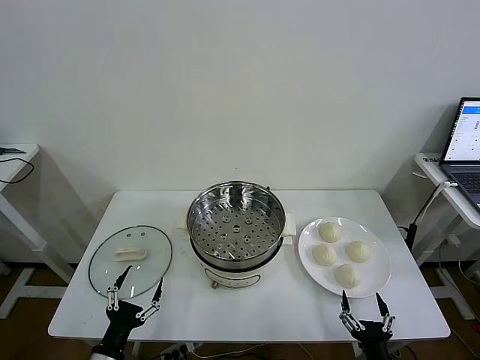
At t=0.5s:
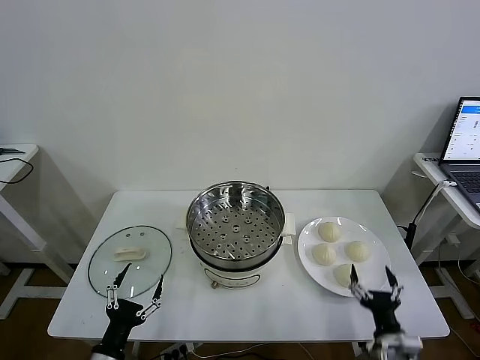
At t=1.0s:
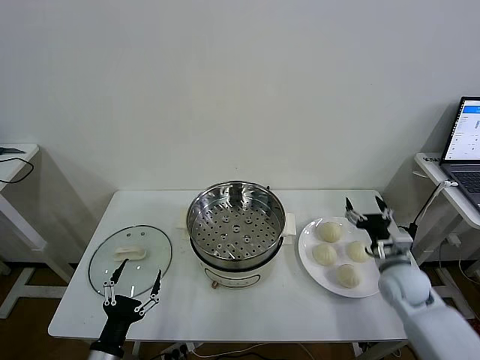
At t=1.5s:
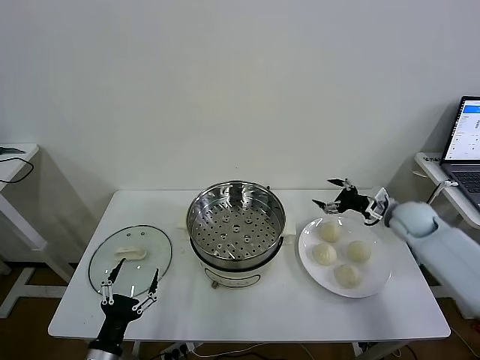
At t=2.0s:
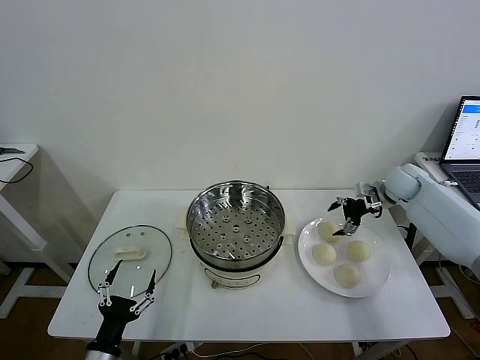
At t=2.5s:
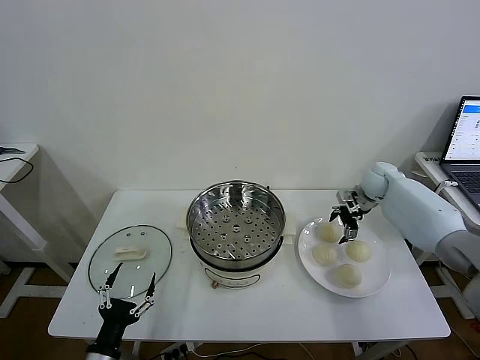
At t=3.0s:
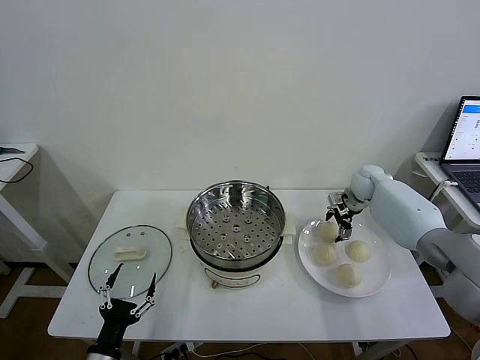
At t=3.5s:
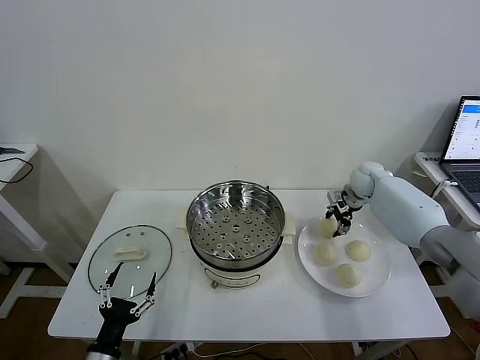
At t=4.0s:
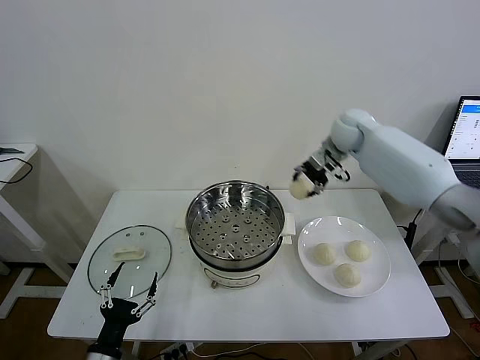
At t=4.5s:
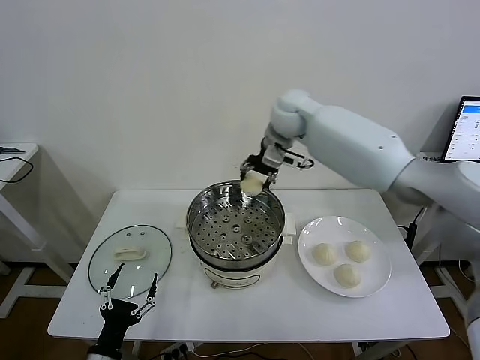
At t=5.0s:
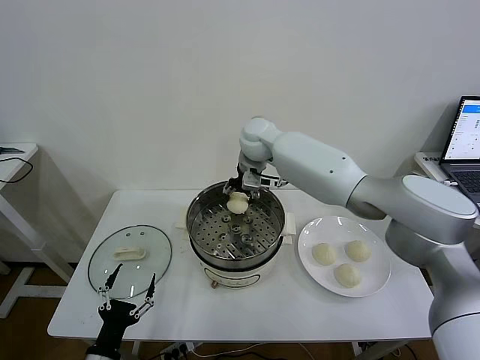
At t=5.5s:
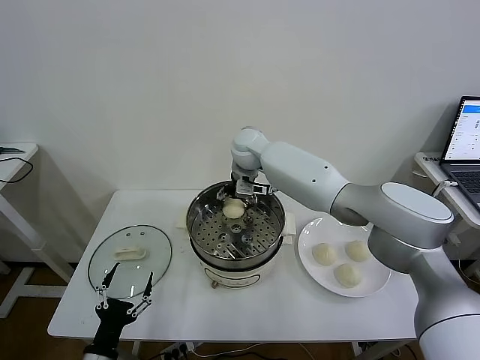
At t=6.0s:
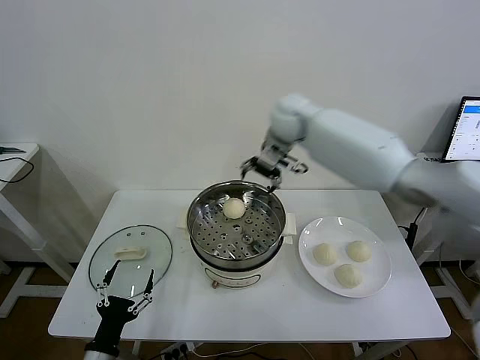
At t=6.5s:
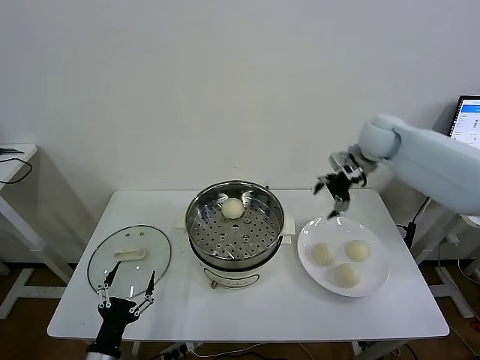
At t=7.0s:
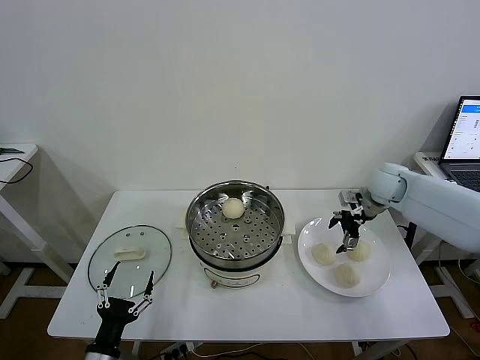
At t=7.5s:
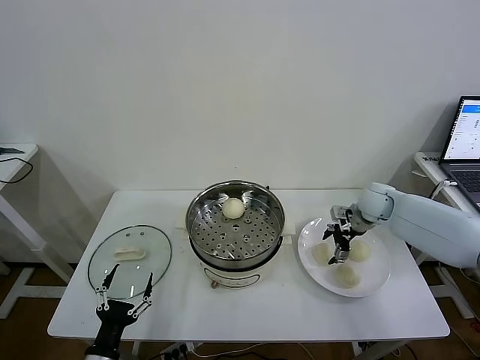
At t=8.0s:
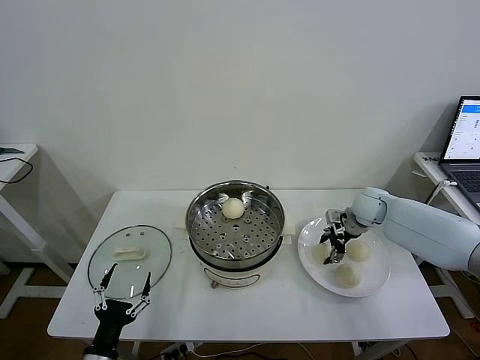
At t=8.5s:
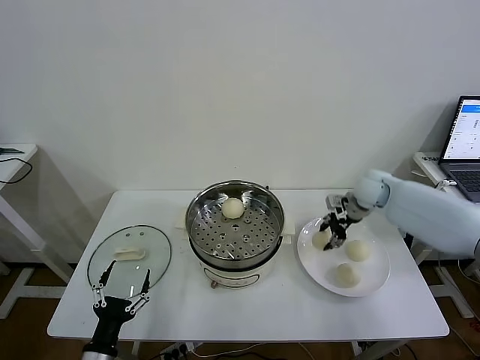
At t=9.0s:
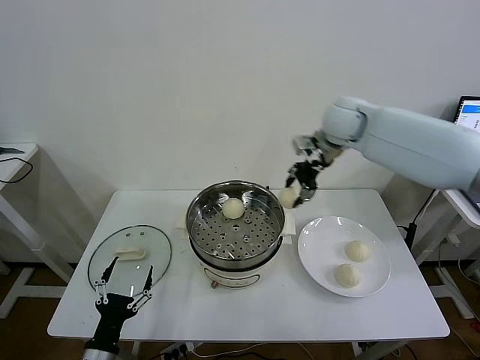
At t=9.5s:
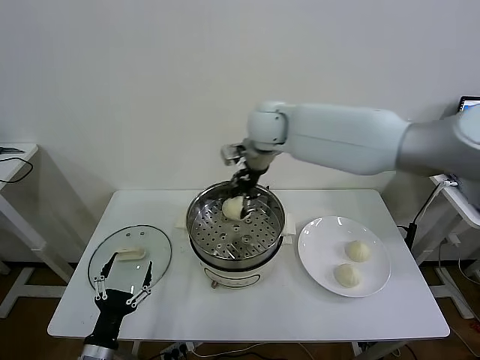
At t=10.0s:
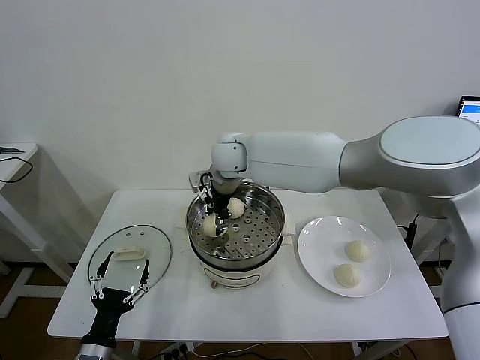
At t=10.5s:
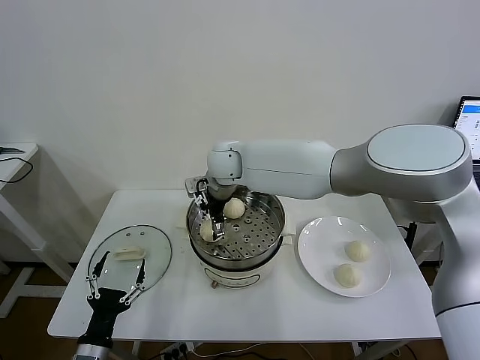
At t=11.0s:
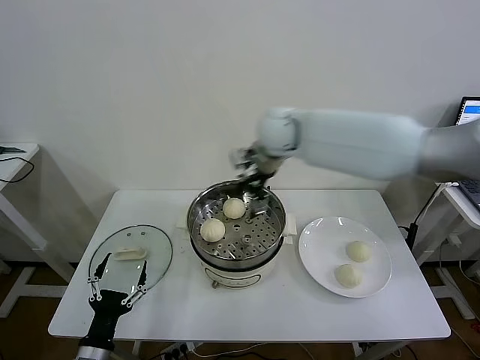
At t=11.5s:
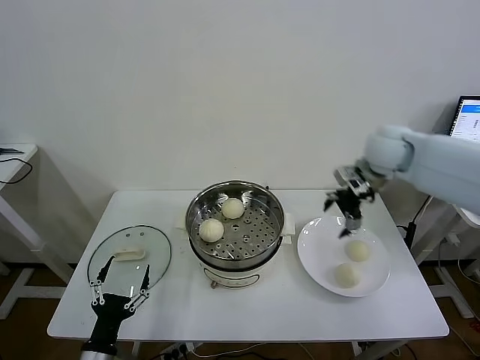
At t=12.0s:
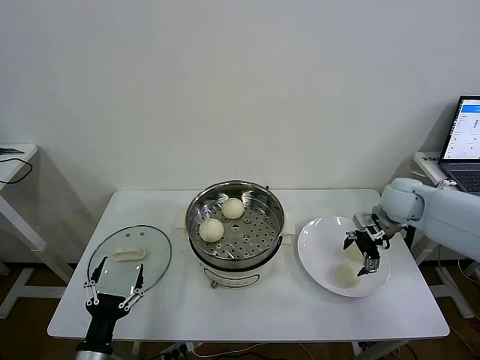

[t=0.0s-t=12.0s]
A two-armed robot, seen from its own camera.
Task of the whole recording: take steamed baozi put them in steamer then cover it.
Step, t=0.0s to t=3.0s: Grasp the baozi in the plate with right gripper.
Step, t=3.5s to t=5.5s: Place the baozi on the steamer with right gripper.
Step, t=6.0s to t=8.0s: Grasp the baozi in the plate with right gripper.
Step, t=8.5s to t=10.5s: Place the baozi on the steamer with right gripper.
t=2.0s to t=4.0s: The right gripper shifts about 25 cm to the left and upward, and closes up.
t=4.0s to t=6.0s: The right gripper goes roughly 10 cm to the left, and opens up.
t=6.0s to t=8.0s: The right gripper heads downward and to the right, covering some 30 cm, and closes its fingers.
t=8.0s to t=10.0s: The right gripper is displaced to the left and upward by about 40 cm.
t=10.0s to t=12.0s: The right gripper shifts about 40 cm to the right, and opens.

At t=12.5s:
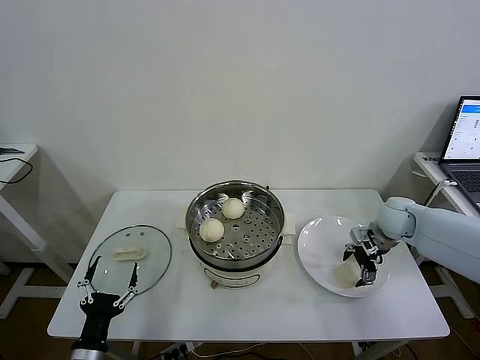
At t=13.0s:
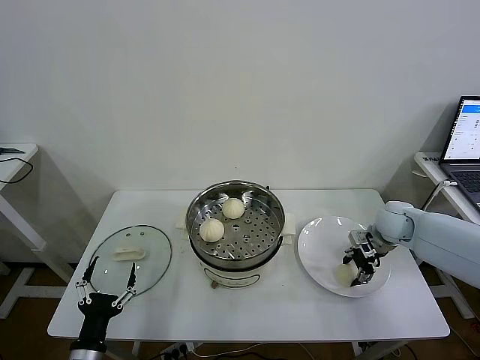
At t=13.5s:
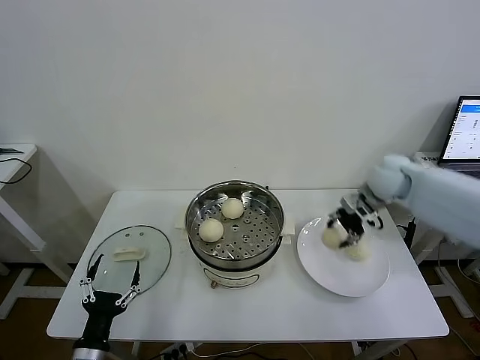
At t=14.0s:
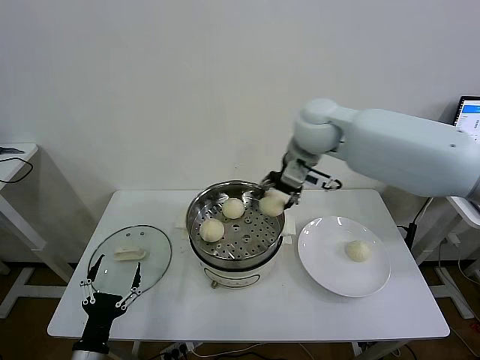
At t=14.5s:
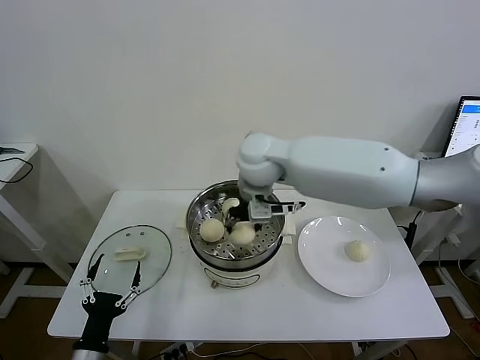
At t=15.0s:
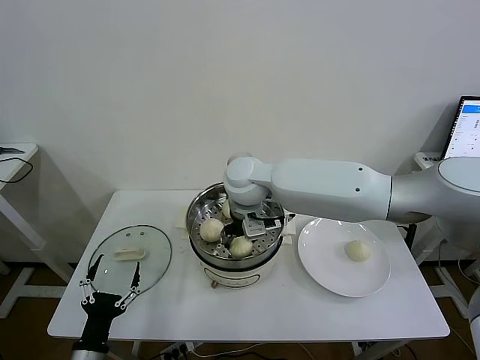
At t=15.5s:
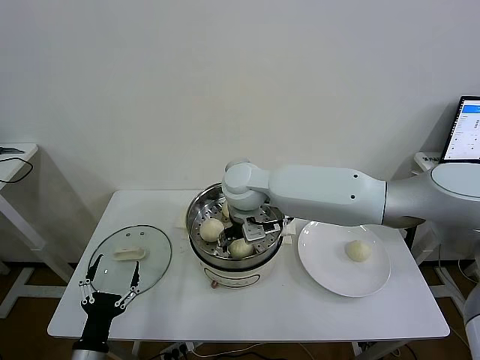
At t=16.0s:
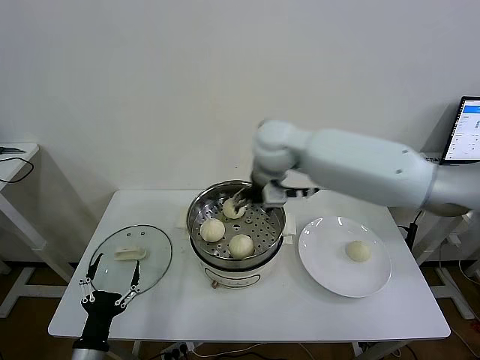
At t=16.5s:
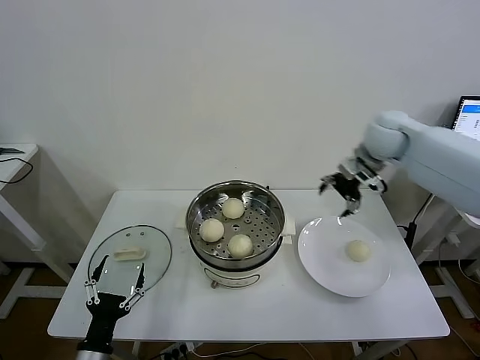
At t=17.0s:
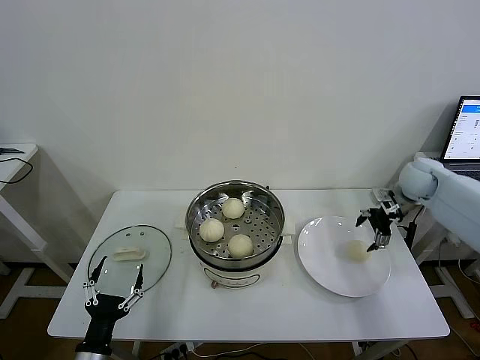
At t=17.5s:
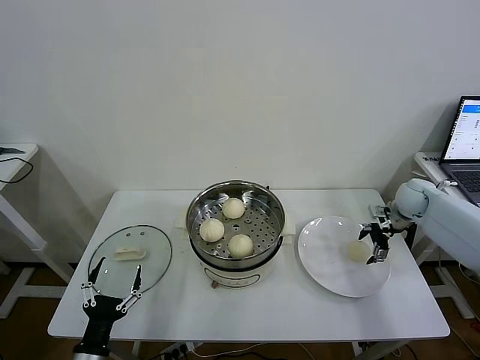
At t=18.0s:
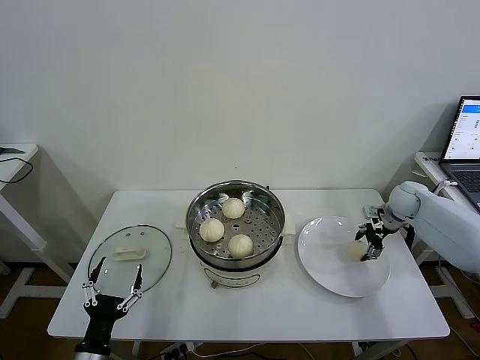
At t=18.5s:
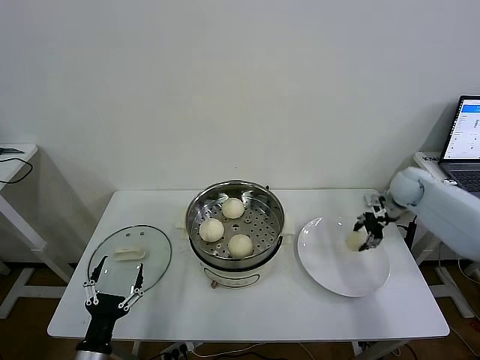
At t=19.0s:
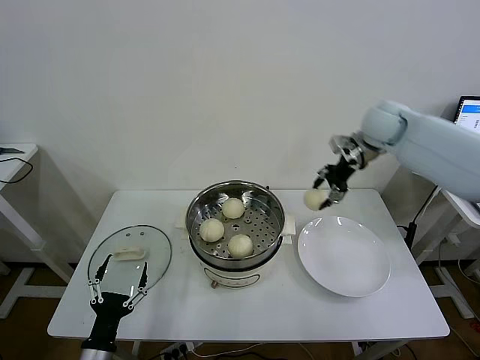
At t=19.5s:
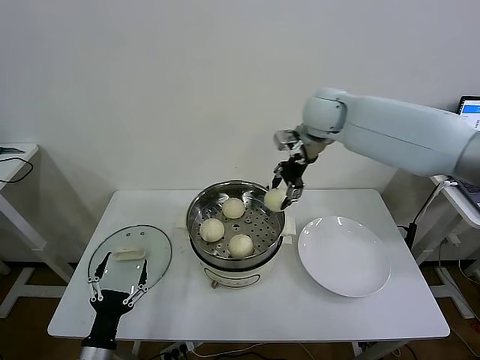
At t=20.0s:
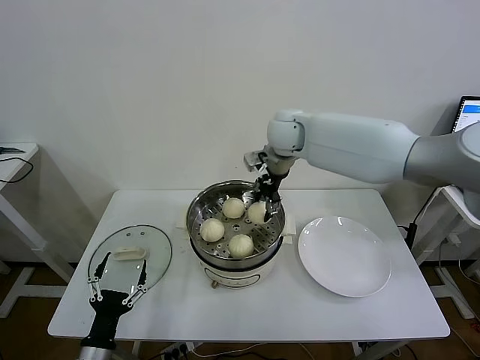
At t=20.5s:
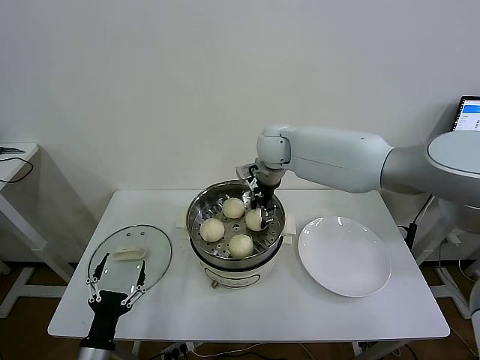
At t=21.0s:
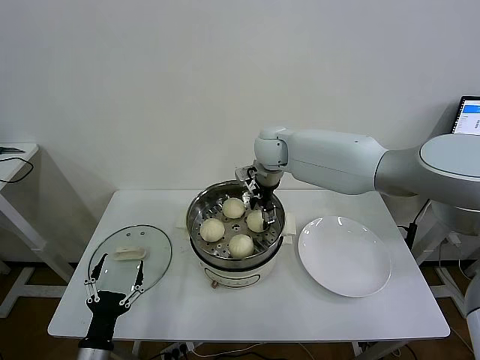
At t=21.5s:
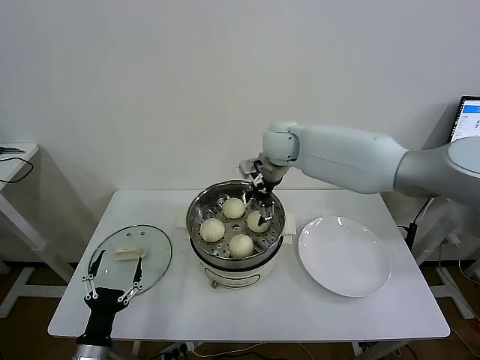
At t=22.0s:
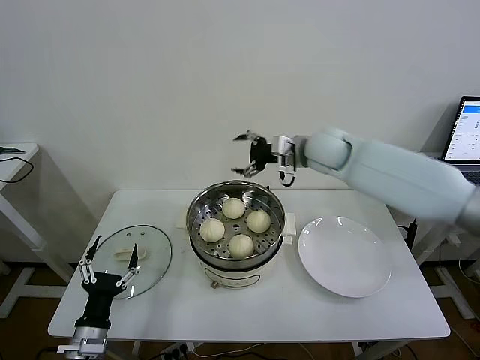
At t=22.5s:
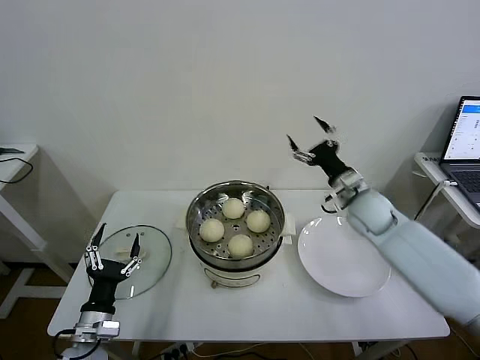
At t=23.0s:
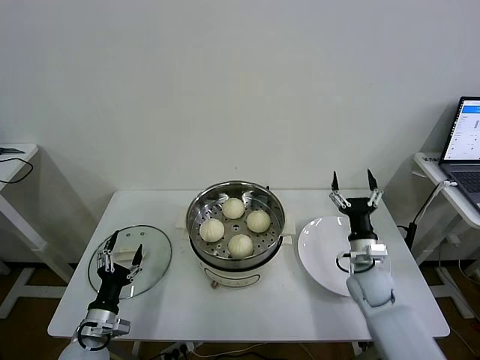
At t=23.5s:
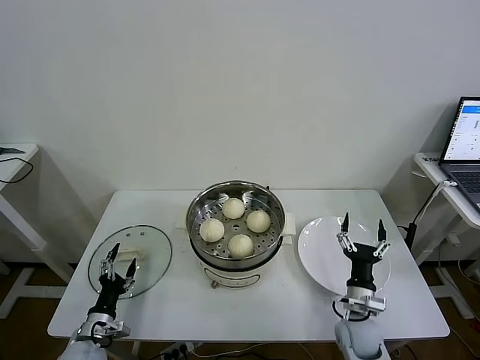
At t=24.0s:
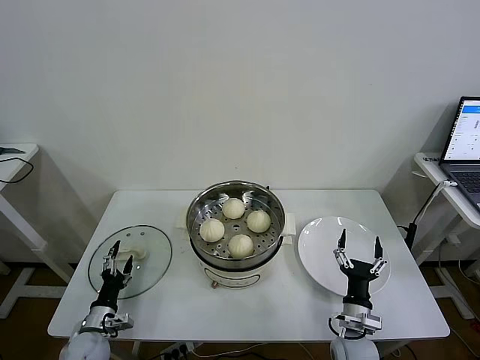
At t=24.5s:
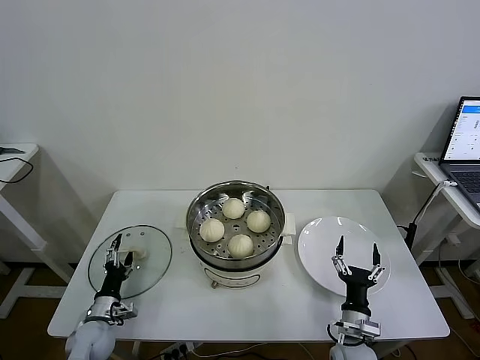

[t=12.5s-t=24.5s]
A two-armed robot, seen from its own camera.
Task of the whole recording: take steamed baozi put them in steamer then cover it.
Step, t=13.5s to t=15.0s: Place the baozi on the steamer with right gripper.
Step, t=15.5s to t=18.0s: Grasp the baozi in the plate with right gripper.
Step, t=18.5s to t=21.0s: Place the baozi on the steamer with right gripper.
t=12.5s to t=14.5s: The right gripper heads to the left and upward, covering some 40 cm, and closes its fingers.
t=14.5s to t=16.5s: The right gripper heads to the right, covering some 30 cm, and opens.
t=16.5s to t=18.5s: The right gripper moves downward and to the right, about 20 cm, and closes up.
t=18.5s to t=20.5s: The right gripper travels to the left by roughly 35 cm.
t=20.5s to t=22.5s: The left gripper travels forward by about 5 cm; the right gripper goes roughly 25 cm to the right, downward and backward, and opens.
t=22.5s to t=24.5s: The right gripper shifts roughly 35 cm backward and downward. Meanwhile the left gripper goes roughly 15 cm downward, forward and to the left.

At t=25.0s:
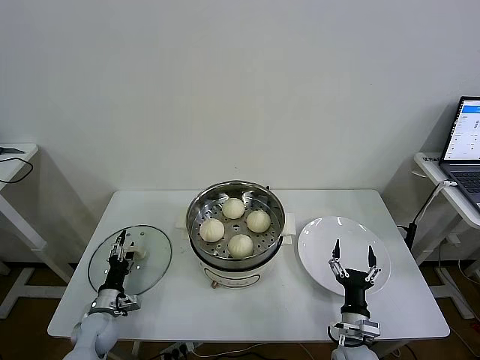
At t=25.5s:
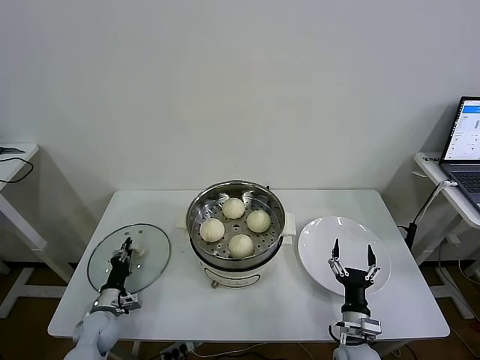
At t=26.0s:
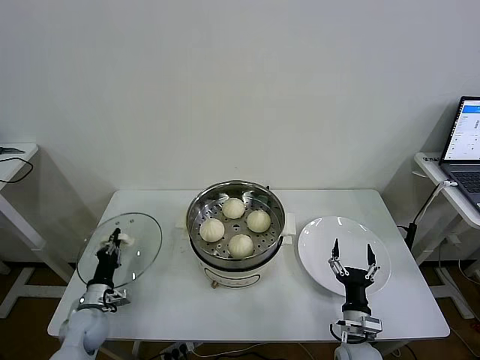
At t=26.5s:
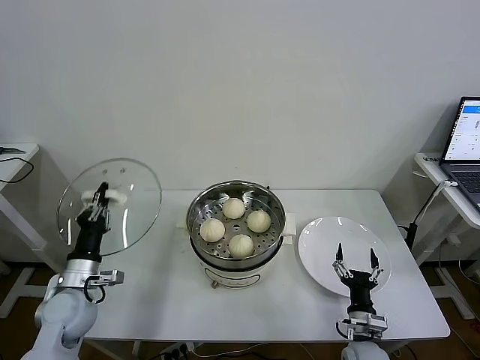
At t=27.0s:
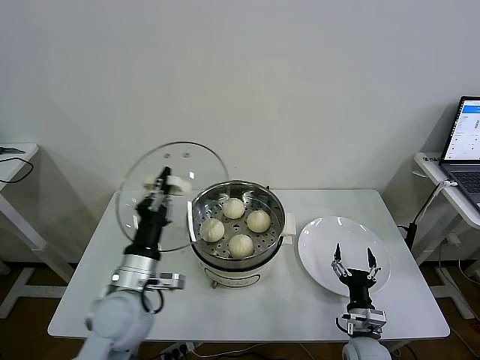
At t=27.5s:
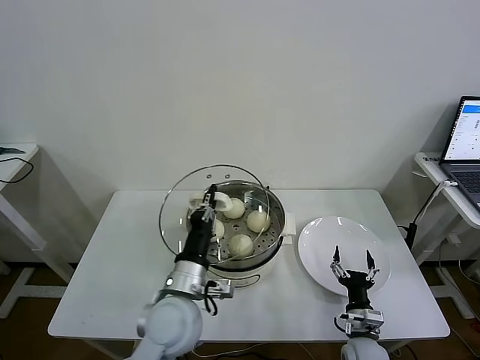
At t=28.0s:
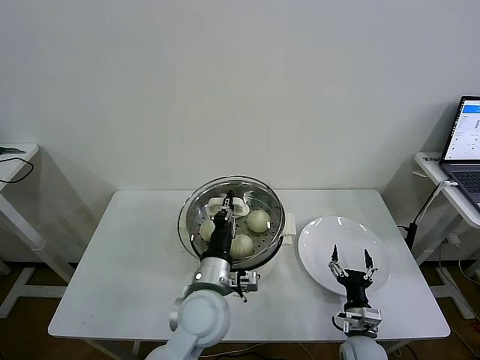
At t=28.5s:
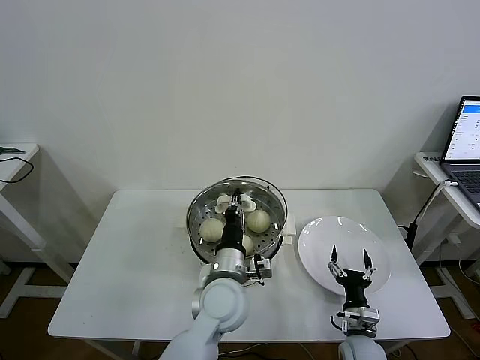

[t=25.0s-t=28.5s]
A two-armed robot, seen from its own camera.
Task of the whole recording: take steamed baozi put them in steamer then cover it.
t=25.0s to t=27.0s: The left gripper travels upward and to the right by approximately 30 cm, and closes its fingers.
t=27.0s to t=28.5s: The left gripper shifts approximately 20 cm to the right.
